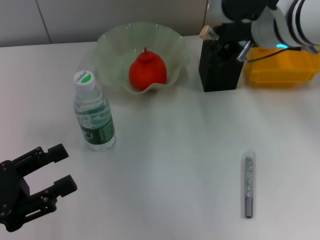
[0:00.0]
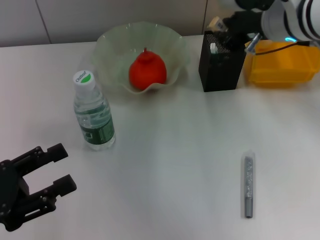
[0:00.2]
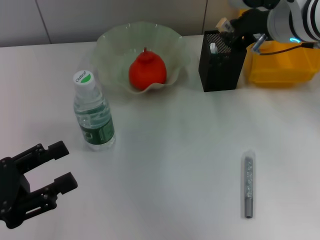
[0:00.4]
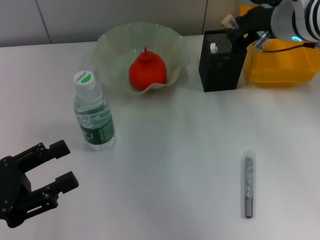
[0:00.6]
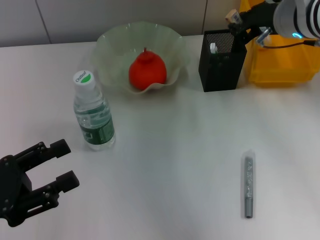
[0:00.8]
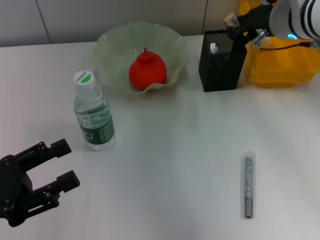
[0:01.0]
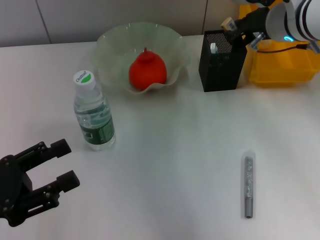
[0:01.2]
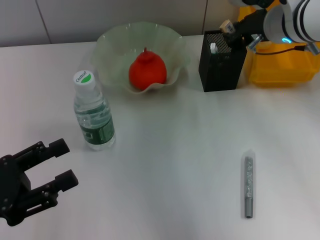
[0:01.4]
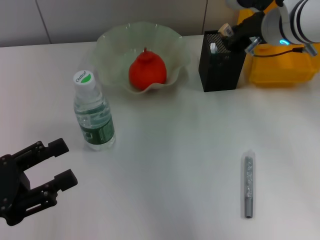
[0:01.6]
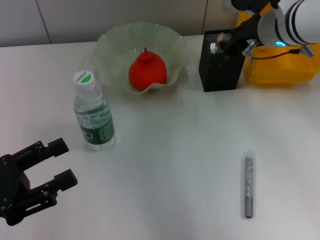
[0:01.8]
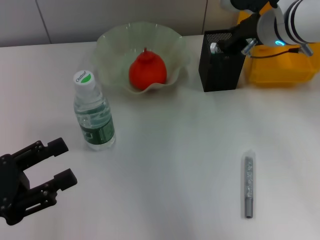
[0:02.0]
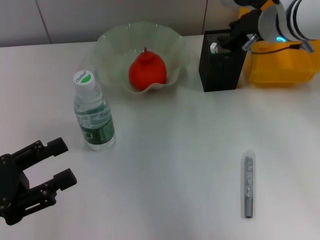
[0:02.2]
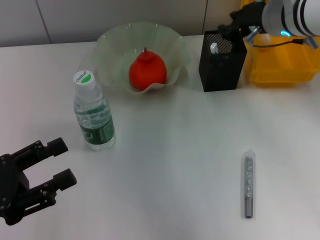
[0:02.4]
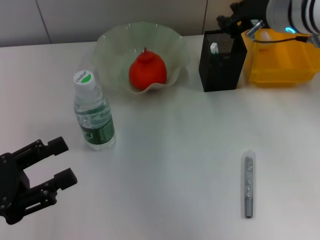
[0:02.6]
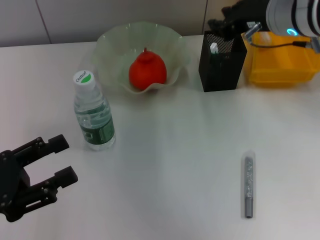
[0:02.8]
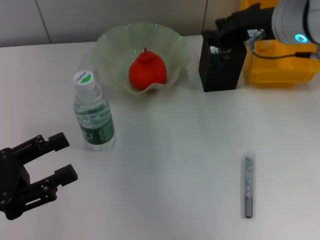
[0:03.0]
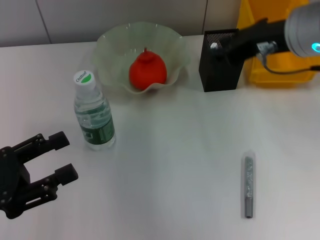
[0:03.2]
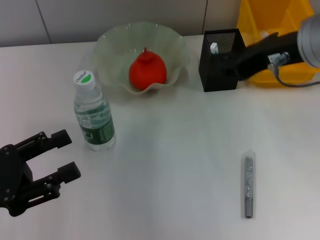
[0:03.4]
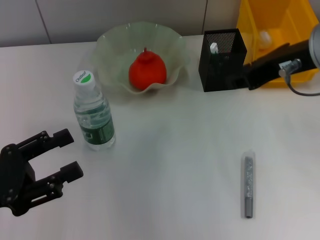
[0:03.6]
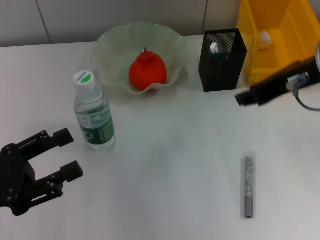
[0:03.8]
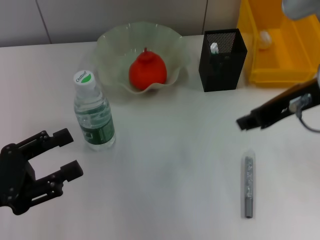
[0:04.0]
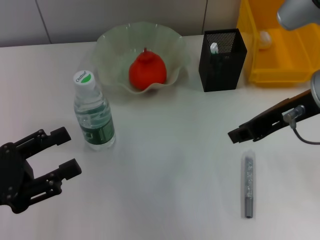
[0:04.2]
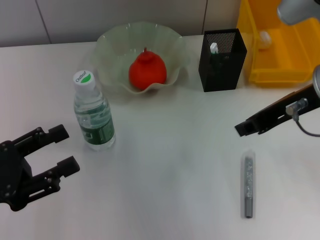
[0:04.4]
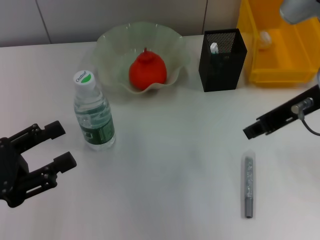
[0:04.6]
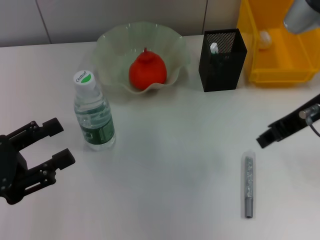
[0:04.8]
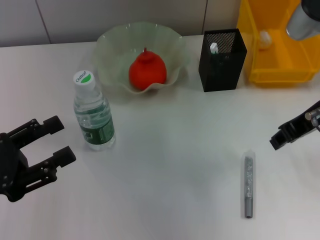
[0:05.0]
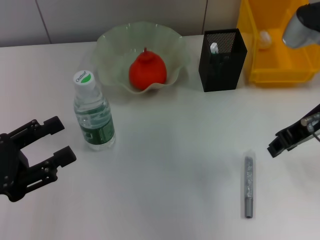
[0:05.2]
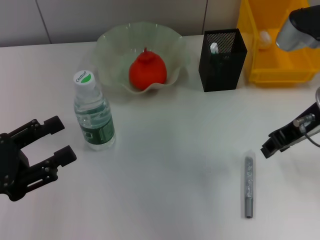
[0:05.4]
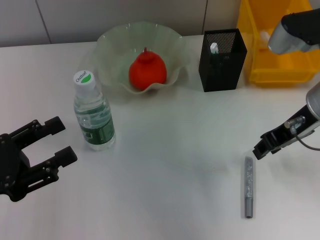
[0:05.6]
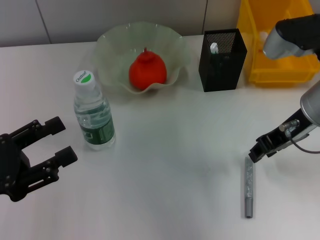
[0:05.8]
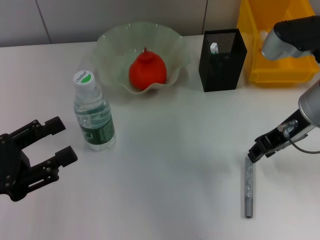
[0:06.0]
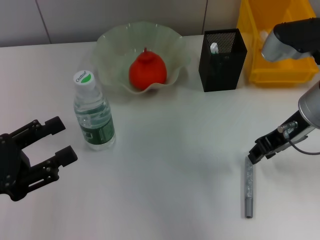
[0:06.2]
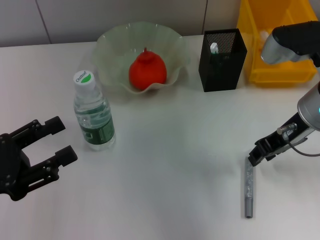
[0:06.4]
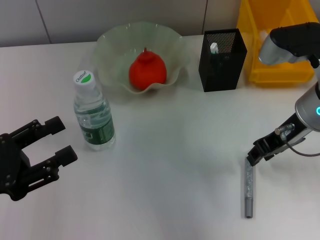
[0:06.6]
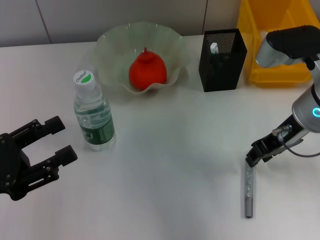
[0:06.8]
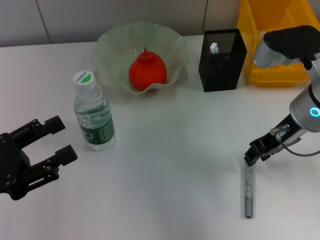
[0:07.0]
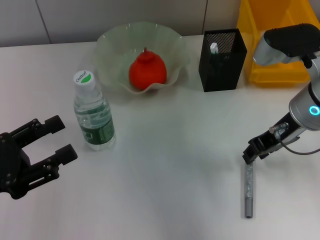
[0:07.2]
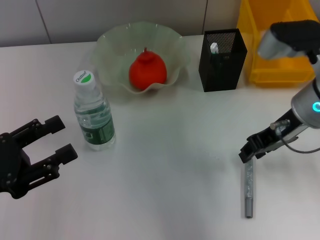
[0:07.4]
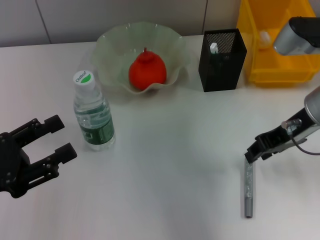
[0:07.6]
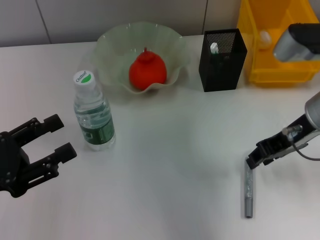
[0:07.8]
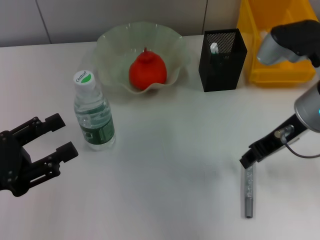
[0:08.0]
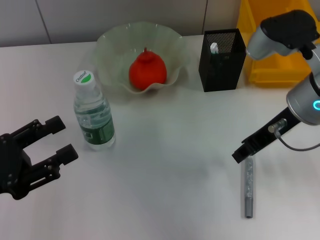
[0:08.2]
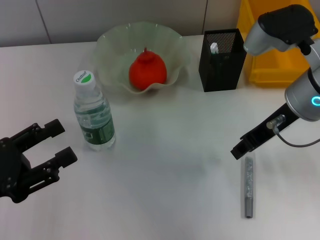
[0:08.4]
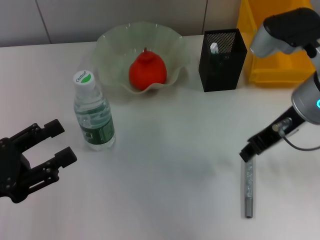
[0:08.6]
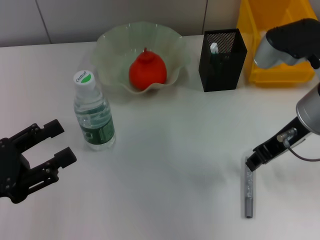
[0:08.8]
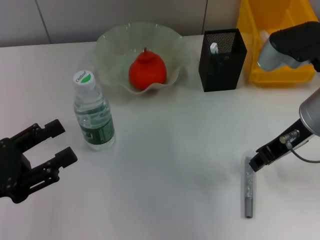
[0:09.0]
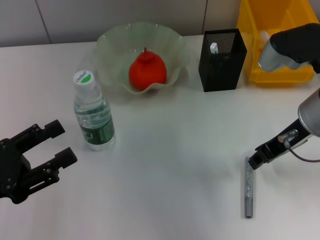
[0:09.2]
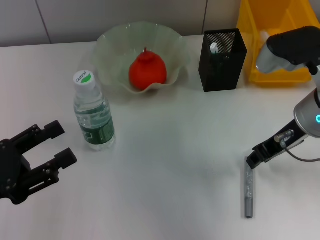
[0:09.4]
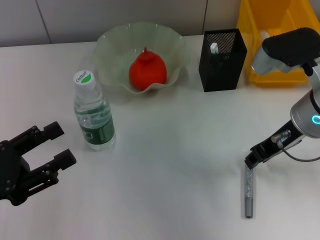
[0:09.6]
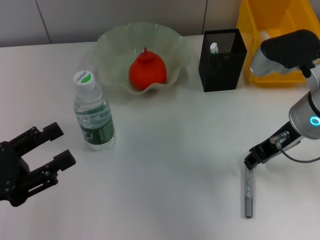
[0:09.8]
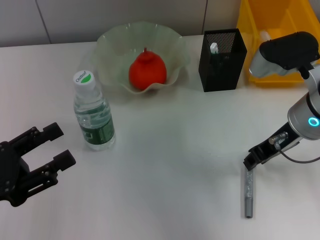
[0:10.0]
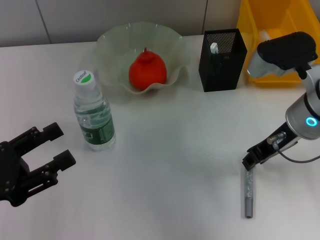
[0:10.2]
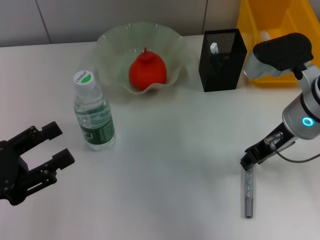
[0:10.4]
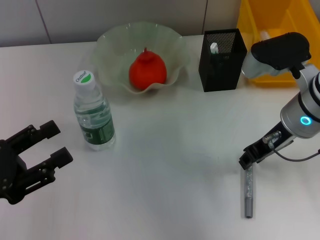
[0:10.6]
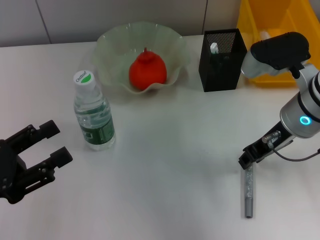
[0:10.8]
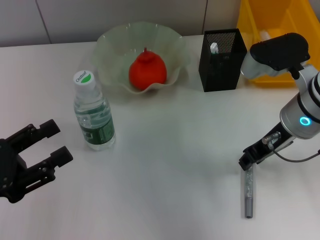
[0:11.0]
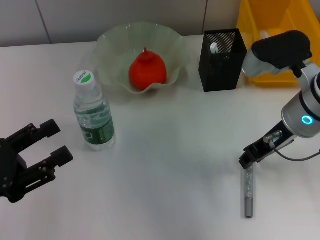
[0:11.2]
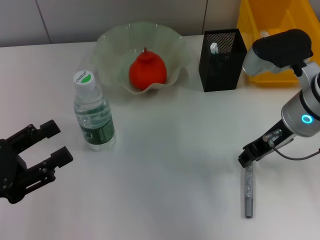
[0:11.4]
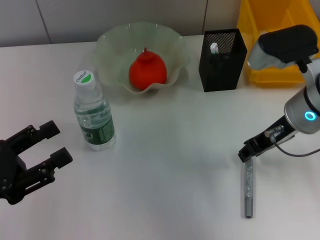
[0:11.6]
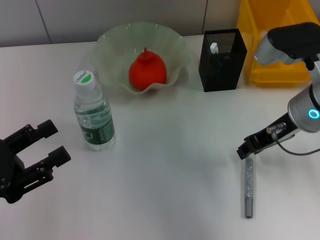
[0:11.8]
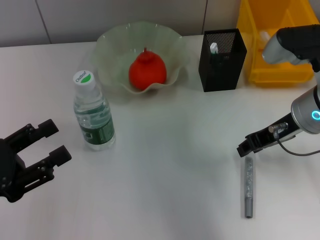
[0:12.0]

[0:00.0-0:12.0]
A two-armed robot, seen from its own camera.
Step, 0:00.0 to 0:02.0: Put the eraser into the pen holder with the right hand.
0:00.0 to 0:01.6: The right gripper shifts by approximately 5 cm.
0:01.6 to 0:03.0: The right gripper moves backward and upward, roughly 10 cm.
0:03.0 to 0:04.4: The right gripper heads backward, covering some 5 cm.
0:04.4 to 0:06.0: The right gripper moves downward, roughly 5 cm.
0:06.0 to 0:12.0: The grippers stay close to where they were, moving slightly.

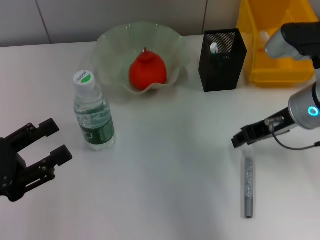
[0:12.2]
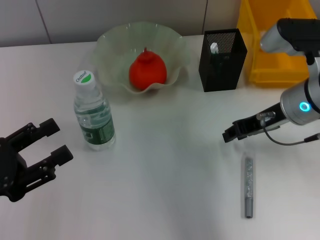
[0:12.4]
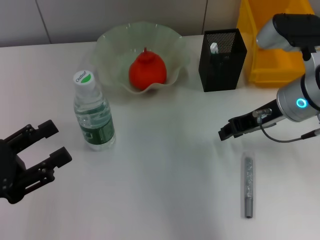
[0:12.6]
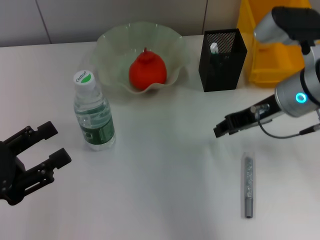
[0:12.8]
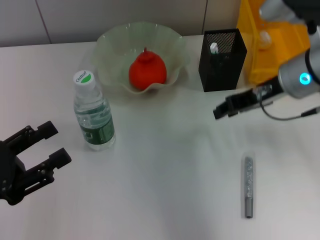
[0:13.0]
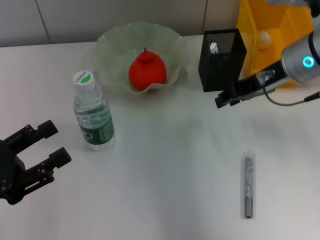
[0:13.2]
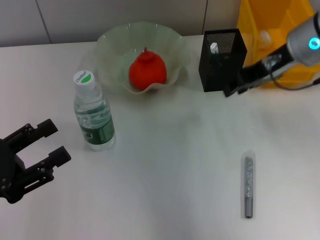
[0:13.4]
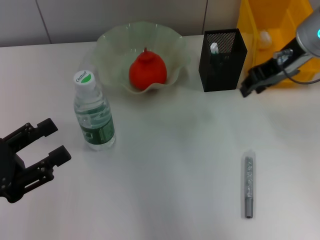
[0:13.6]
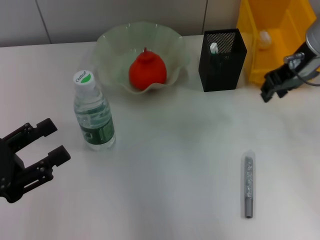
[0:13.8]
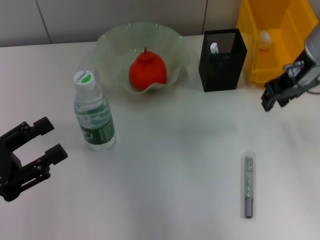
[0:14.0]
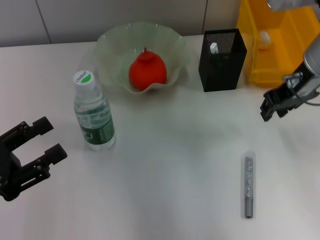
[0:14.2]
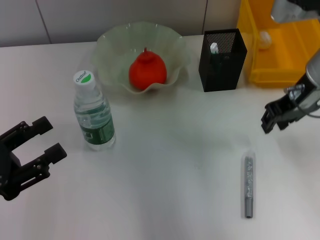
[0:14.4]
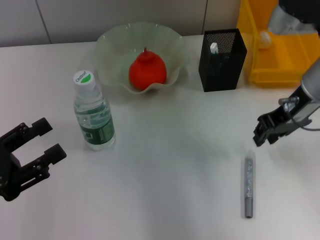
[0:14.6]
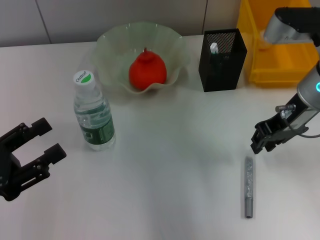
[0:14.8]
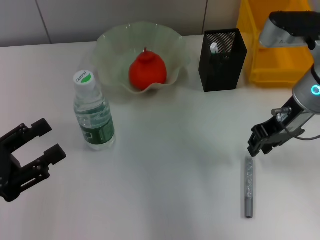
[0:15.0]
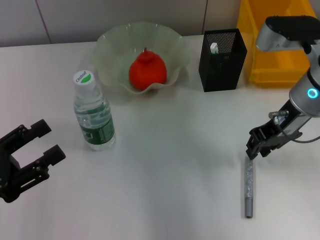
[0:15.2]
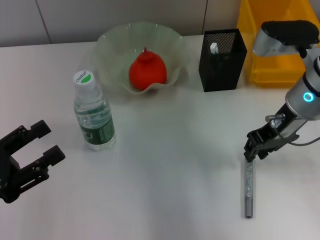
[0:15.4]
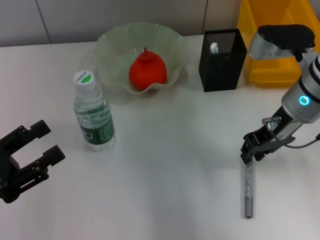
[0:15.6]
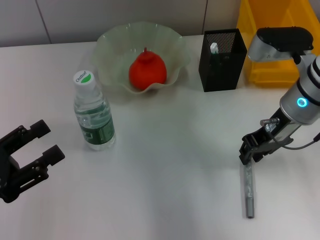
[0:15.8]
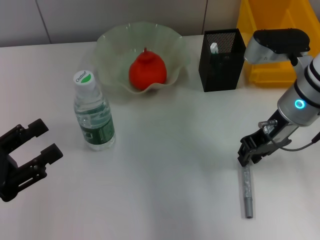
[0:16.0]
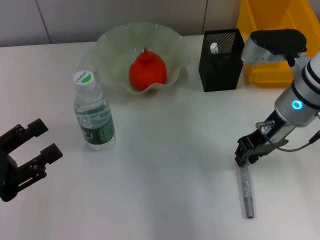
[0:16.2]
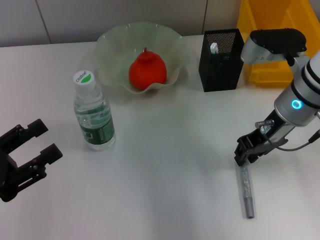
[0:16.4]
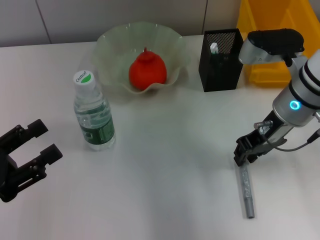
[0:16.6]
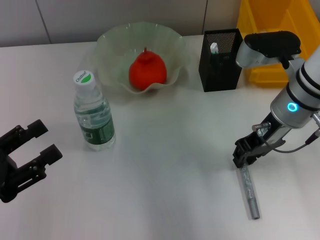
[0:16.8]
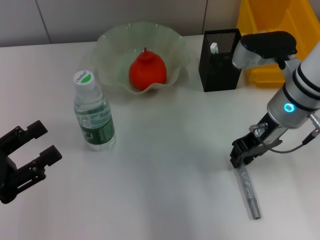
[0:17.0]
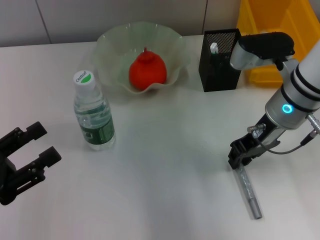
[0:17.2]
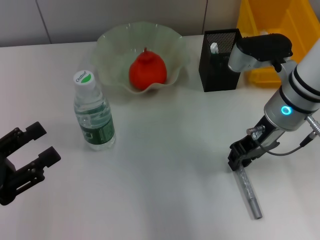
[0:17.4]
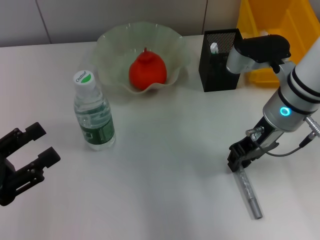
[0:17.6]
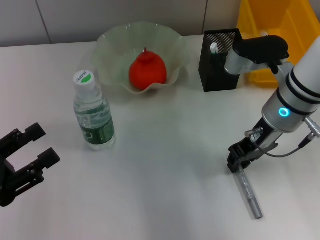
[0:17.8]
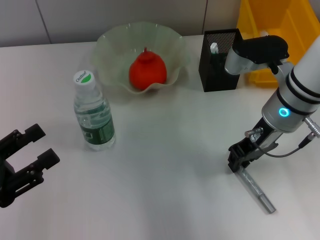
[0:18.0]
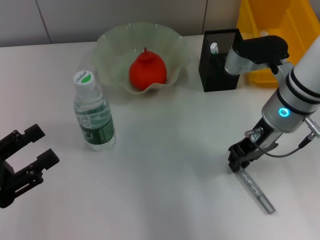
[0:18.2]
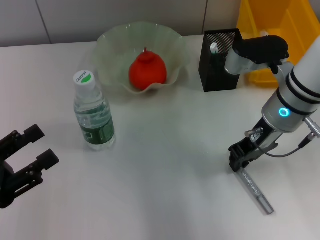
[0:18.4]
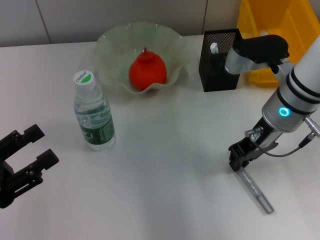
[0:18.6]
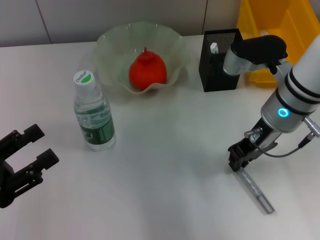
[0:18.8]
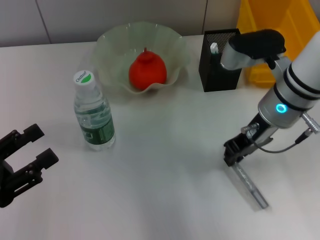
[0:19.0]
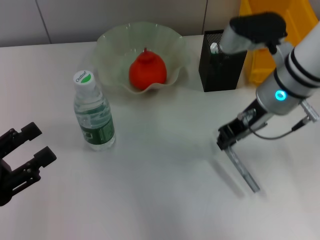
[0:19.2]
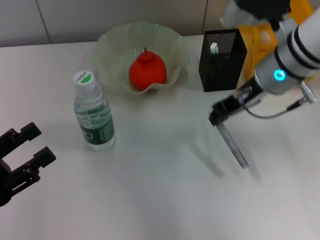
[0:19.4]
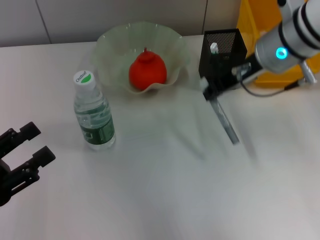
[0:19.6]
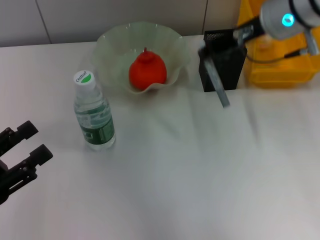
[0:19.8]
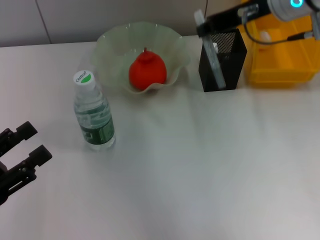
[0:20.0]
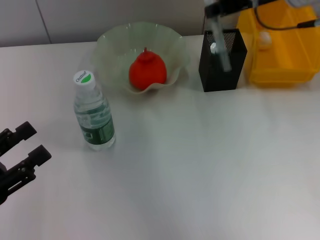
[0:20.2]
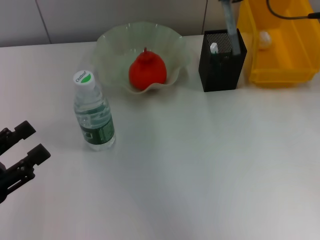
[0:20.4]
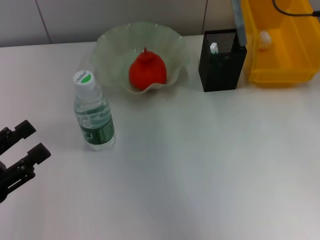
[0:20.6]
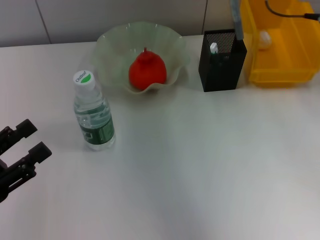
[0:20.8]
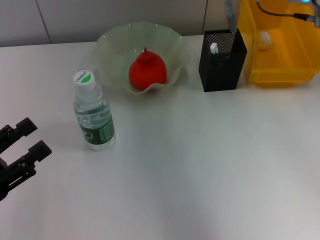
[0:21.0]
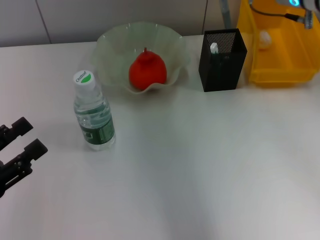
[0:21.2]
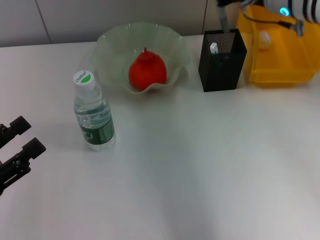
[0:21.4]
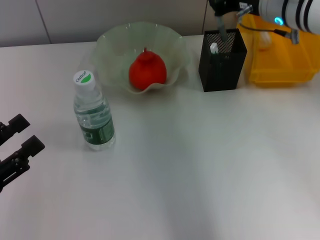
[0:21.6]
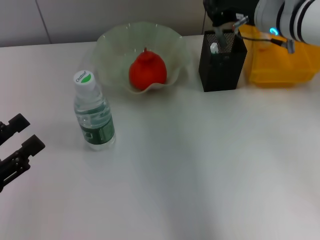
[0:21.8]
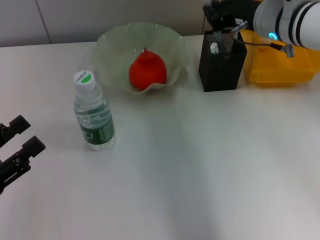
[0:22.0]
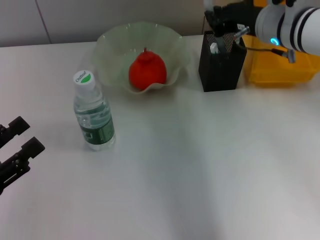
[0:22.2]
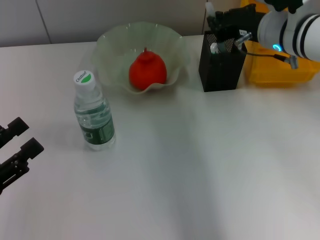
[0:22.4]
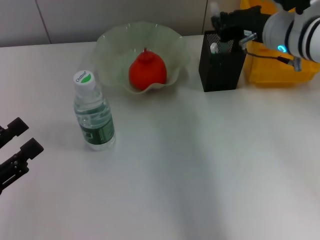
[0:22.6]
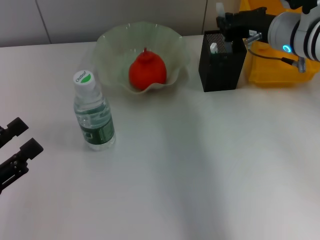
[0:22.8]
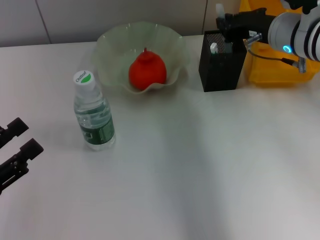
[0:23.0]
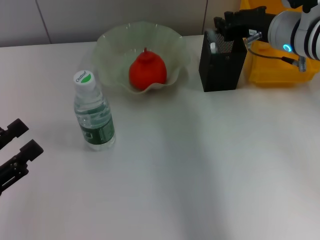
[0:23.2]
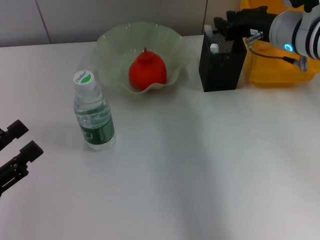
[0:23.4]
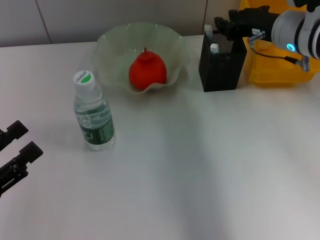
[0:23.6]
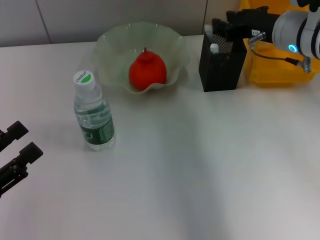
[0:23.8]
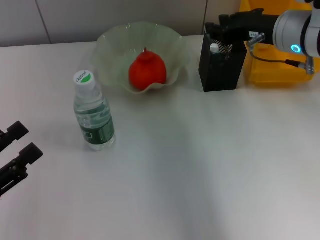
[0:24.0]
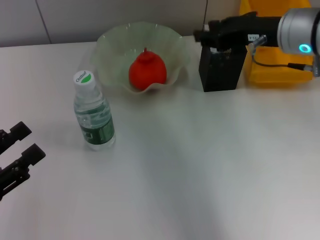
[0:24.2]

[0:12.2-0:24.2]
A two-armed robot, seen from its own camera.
Step, 0:12.2 to 0:18.2: Grab the gray glue with the right hand.
Step, 0:18.4 to 0:23.4: Place the gray glue into the pen holder with the right hand.
0:12.2 to 0:13.8: The right gripper travels upward and forward by about 10 cm.
0:13.8 to 0:15.2: The right gripper shifts approximately 5 cm downward.
0:15.2 to 0:18.2: There are only small adjustments of the grippers.
0:18.2 to 0:19.8: The right gripper is displaced upward by about 10 cm.
0:19.8 to 0:21.2: The right gripper shifts by about 5 cm.
0:21.2 to 0:22.6: The right gripper is displaced downward by some 5 cm.
0:22.6 to 0:24.2: The right gripper changes place by some 5 cm.
